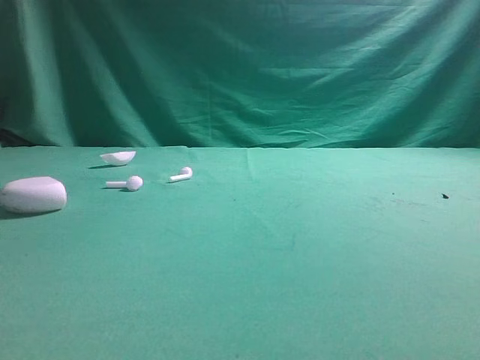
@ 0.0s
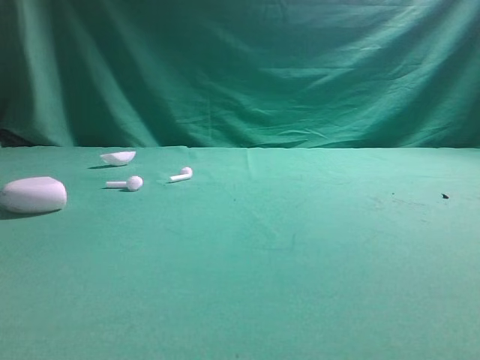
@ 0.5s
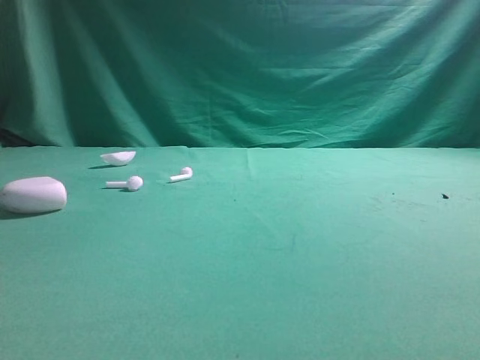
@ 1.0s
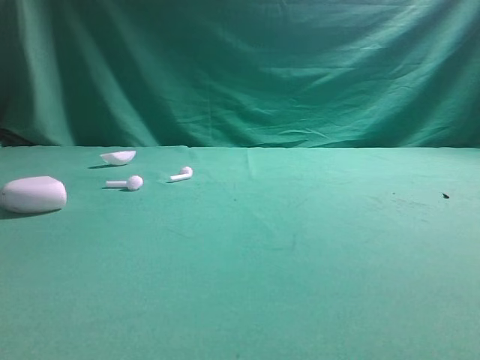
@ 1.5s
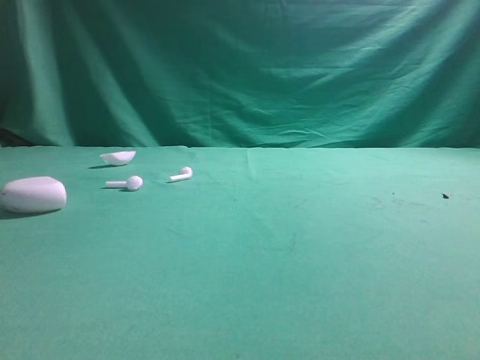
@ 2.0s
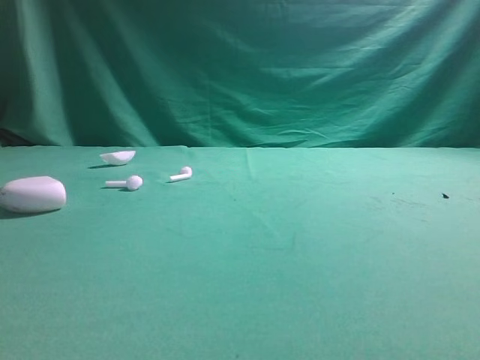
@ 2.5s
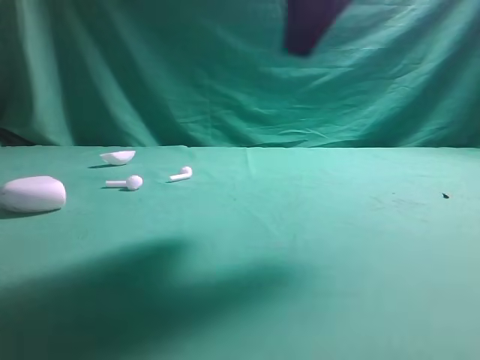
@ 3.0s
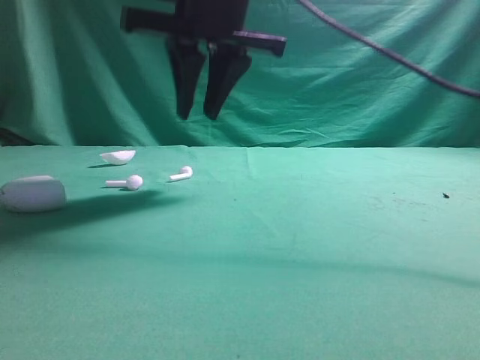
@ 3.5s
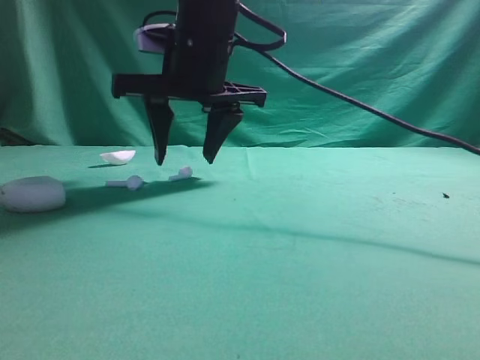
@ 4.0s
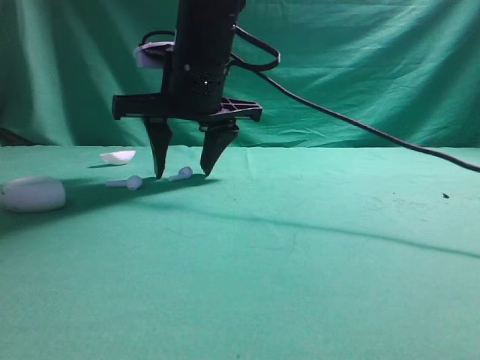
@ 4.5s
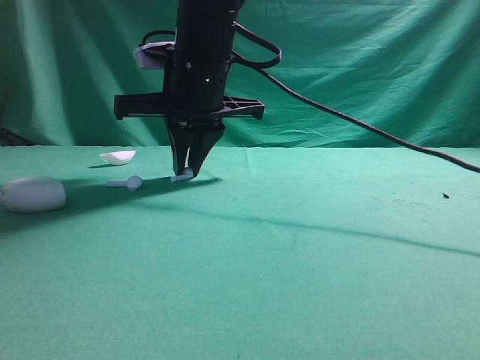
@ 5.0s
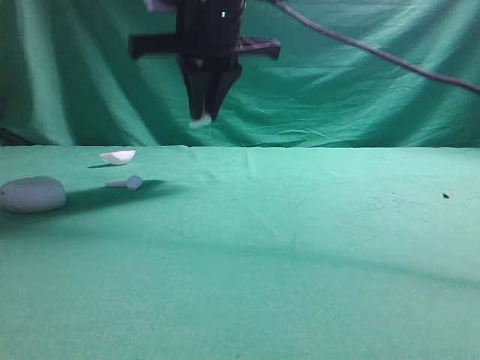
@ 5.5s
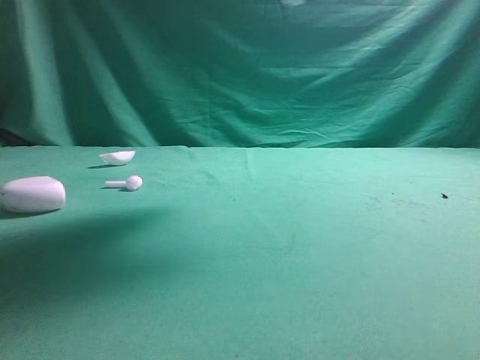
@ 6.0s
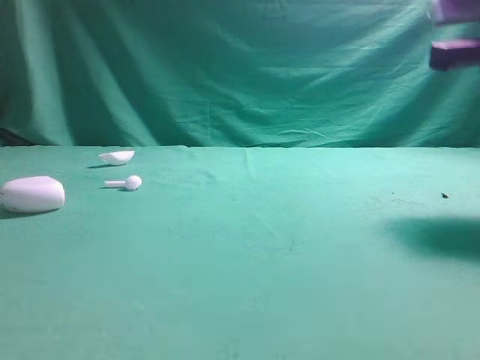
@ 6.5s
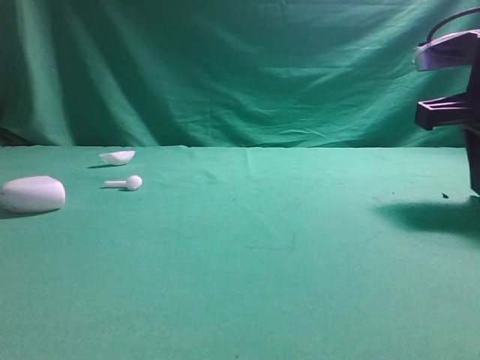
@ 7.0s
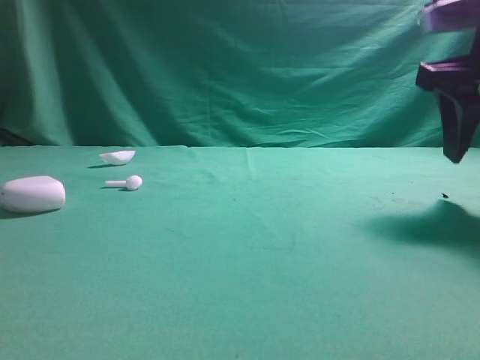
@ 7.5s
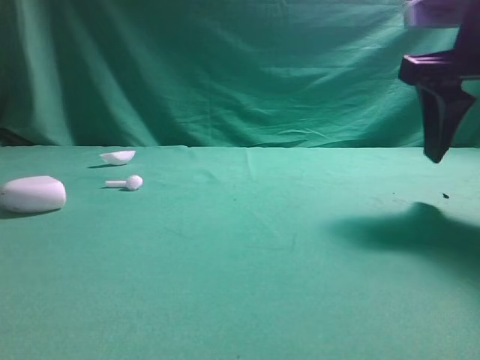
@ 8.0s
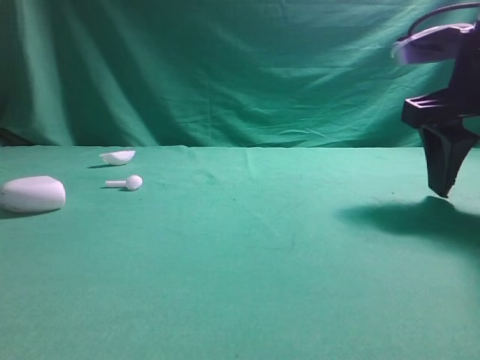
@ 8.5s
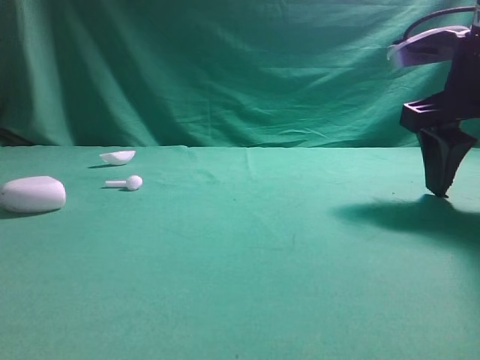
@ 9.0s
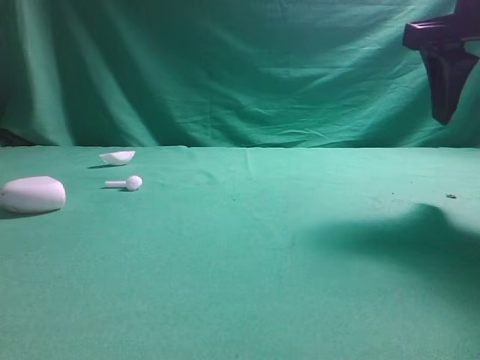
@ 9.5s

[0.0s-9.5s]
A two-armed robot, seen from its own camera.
Step, 0.0s to 5.5s: Grasp the Bluetooth earbud.

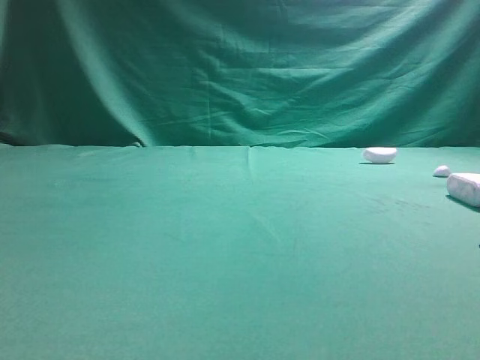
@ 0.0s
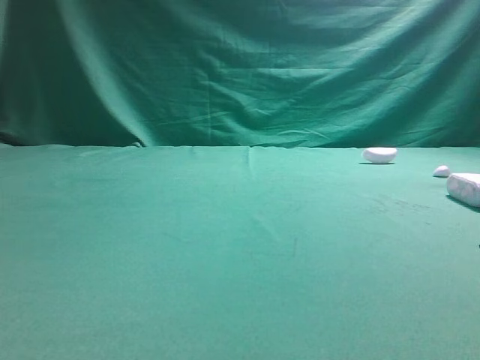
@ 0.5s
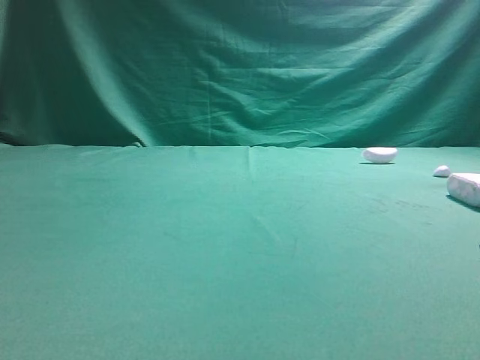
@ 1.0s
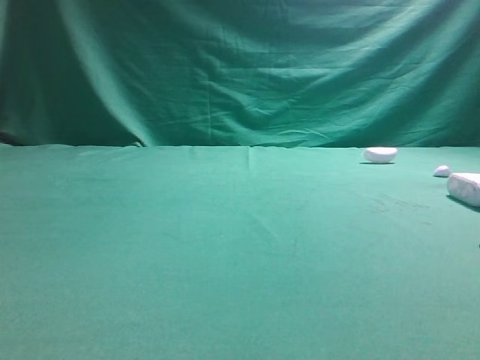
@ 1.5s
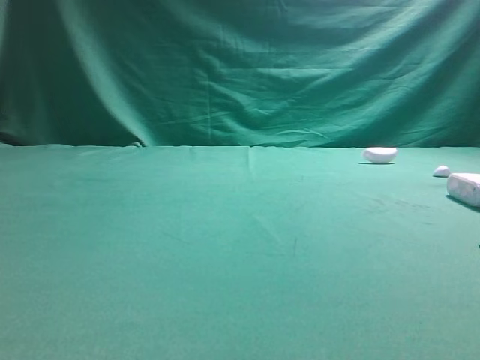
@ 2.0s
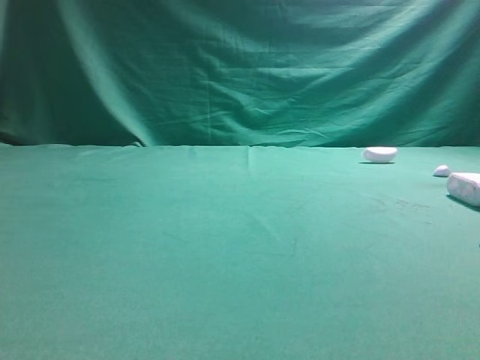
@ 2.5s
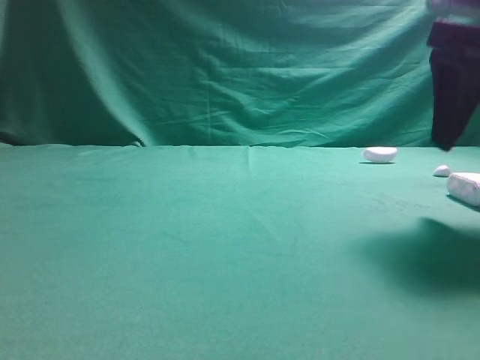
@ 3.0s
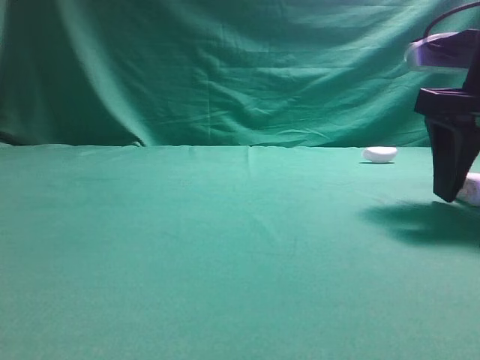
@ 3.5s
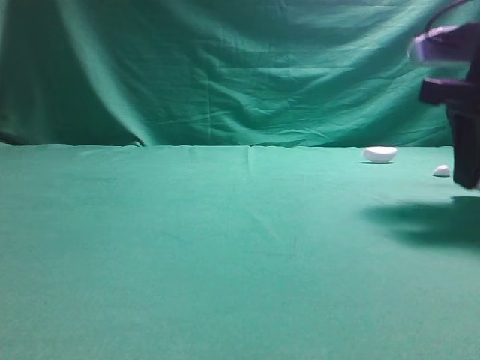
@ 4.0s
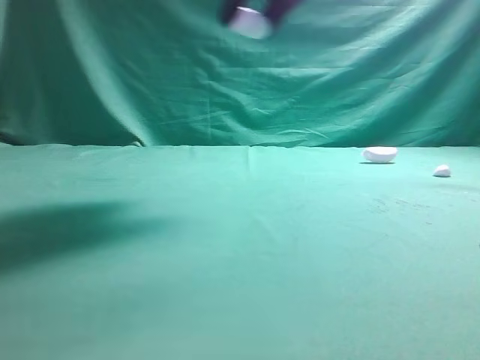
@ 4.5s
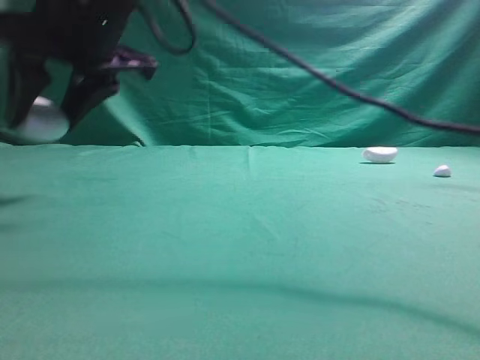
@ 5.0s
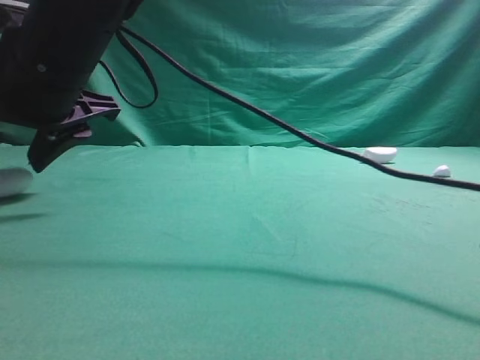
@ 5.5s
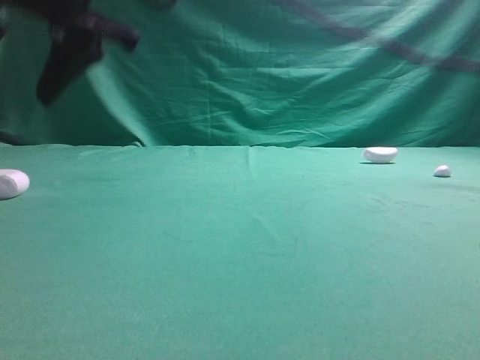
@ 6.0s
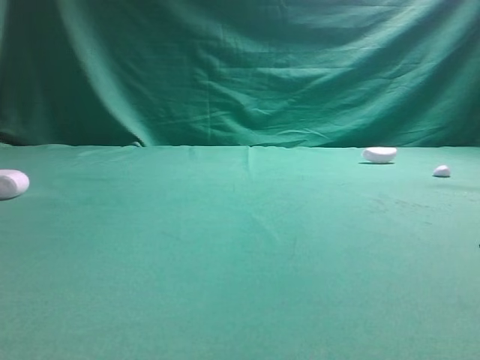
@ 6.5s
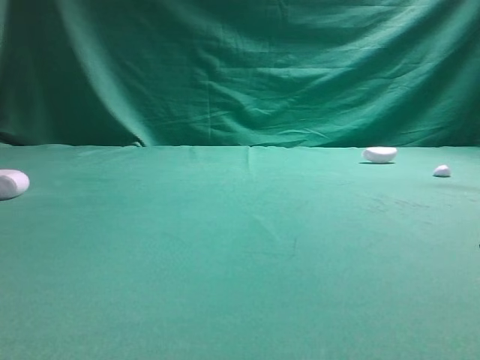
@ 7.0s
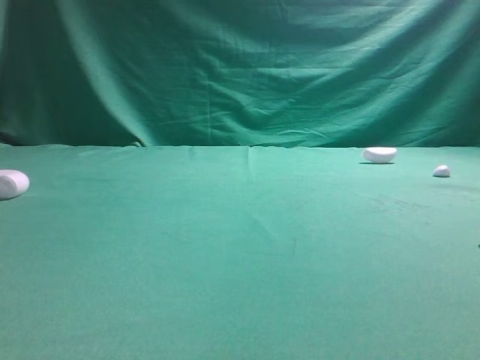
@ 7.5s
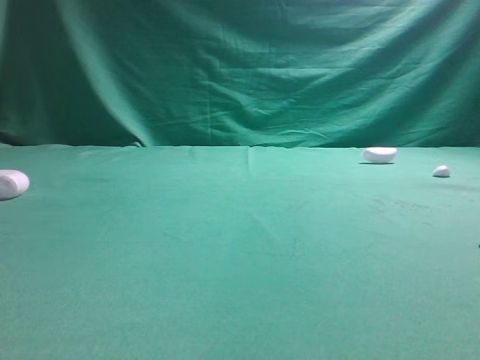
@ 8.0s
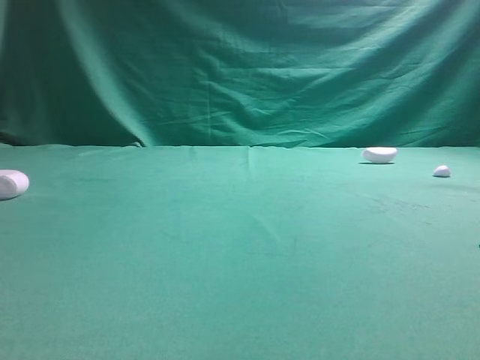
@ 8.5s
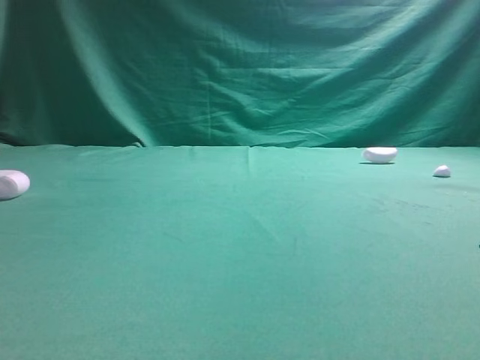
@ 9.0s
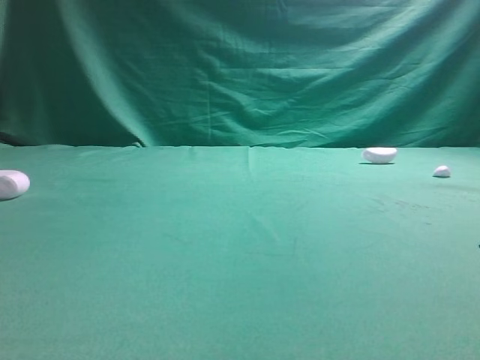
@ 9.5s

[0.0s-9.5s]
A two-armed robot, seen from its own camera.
Step, 0.0s to 4.0s: Grasp the Bluetooth earphone case.
Step, 4.5s to 6.0s: Place bluetooth earphone case on the left side of the table.

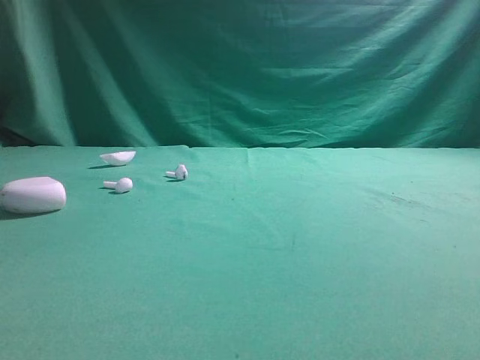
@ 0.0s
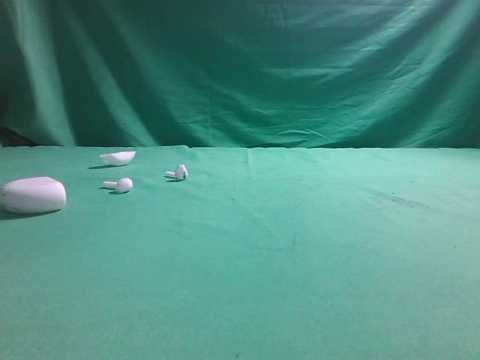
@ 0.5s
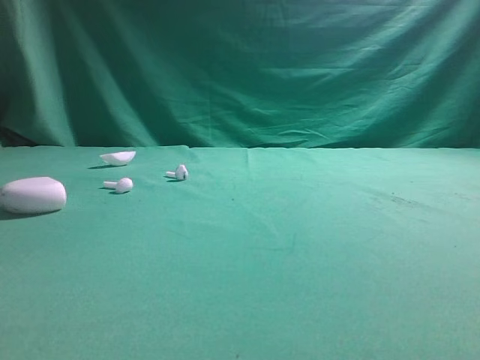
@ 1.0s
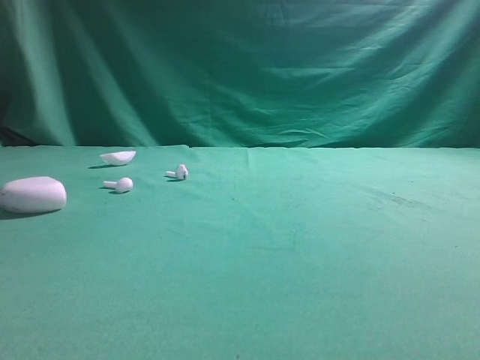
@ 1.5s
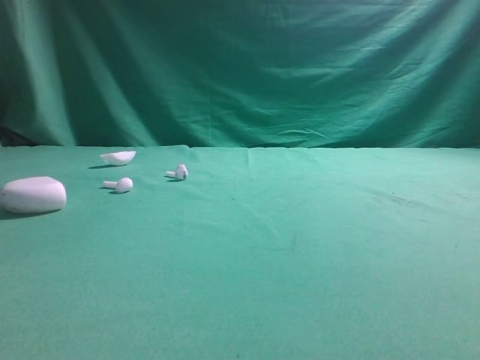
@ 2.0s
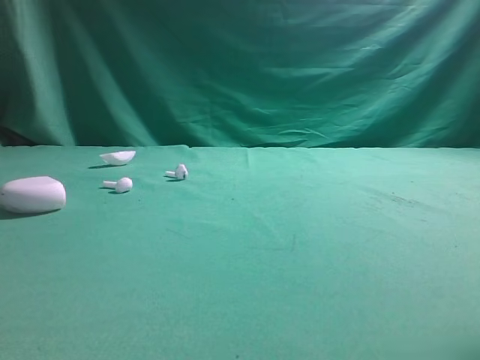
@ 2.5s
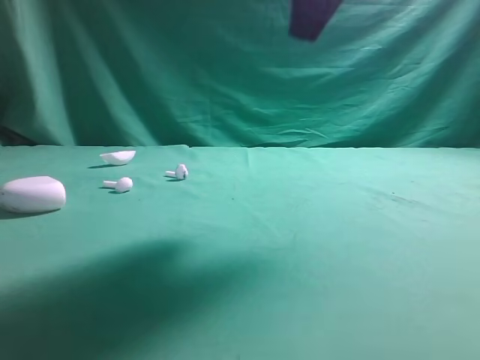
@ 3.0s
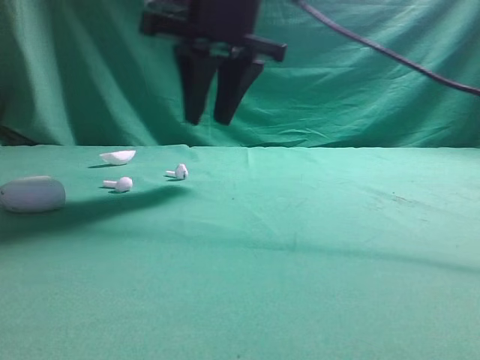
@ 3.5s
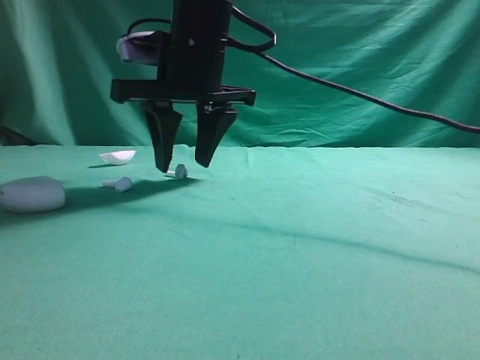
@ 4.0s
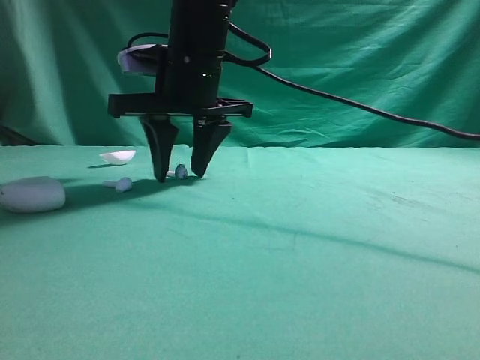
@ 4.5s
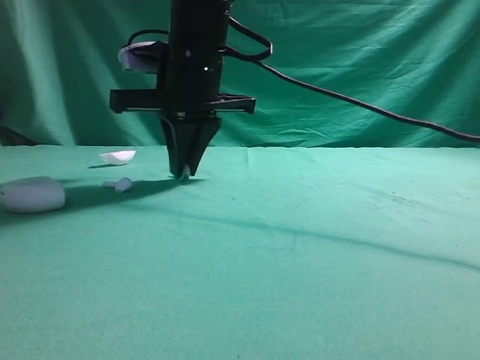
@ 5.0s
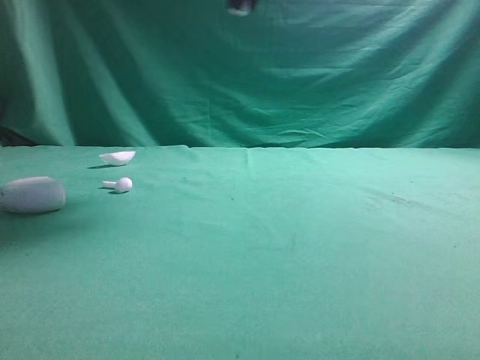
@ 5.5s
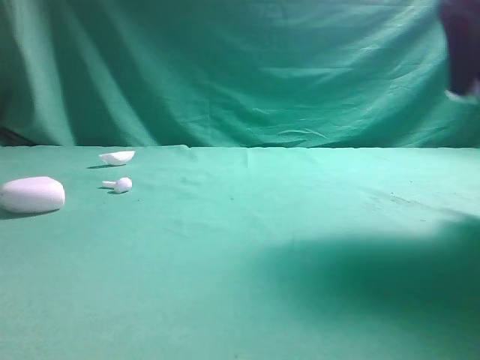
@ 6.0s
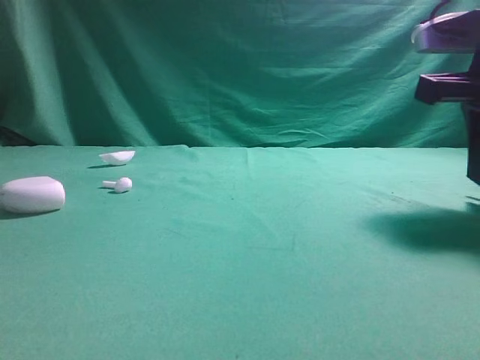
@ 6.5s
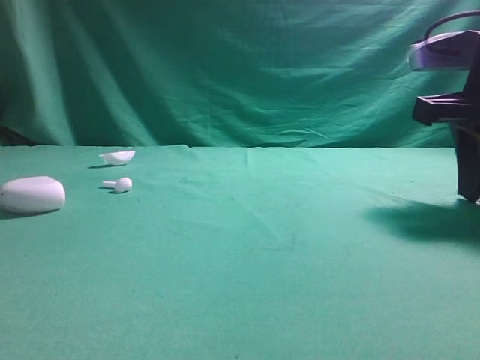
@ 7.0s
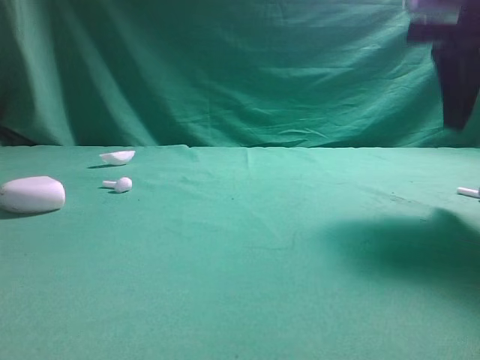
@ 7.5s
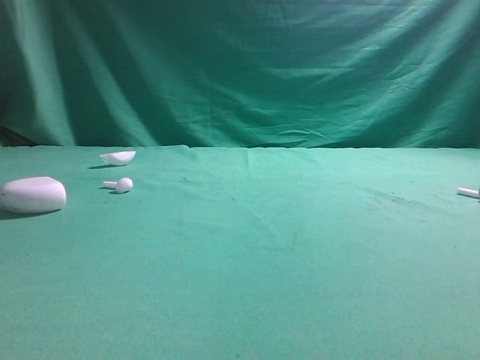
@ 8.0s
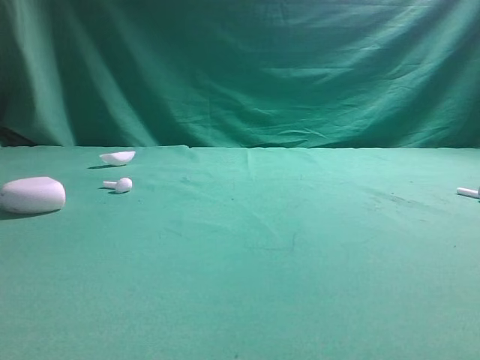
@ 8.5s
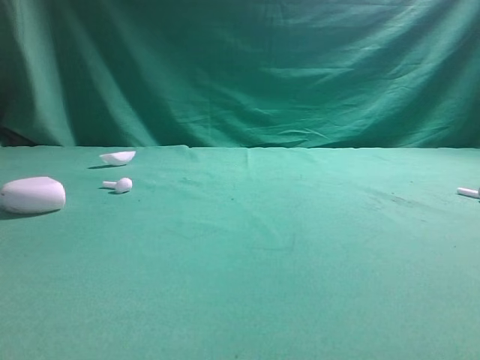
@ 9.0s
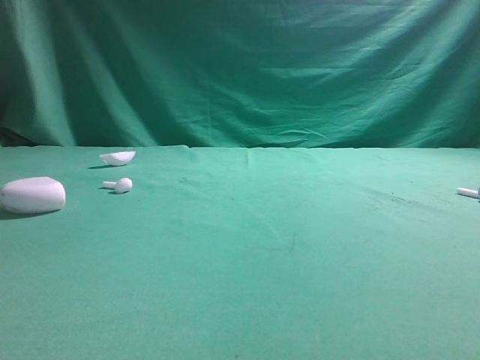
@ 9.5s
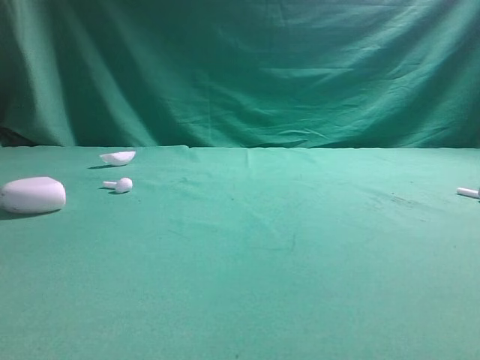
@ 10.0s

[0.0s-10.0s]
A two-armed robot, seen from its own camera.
Step, 0.0s to 5.0s: Grasp the Bluetooth earbud.
Step, 5.5s to 7.0s: Place bluetooth earbud on the right side of the table.
